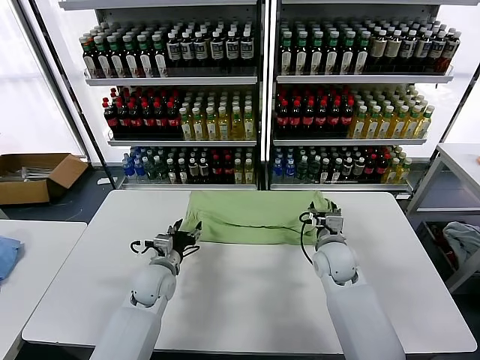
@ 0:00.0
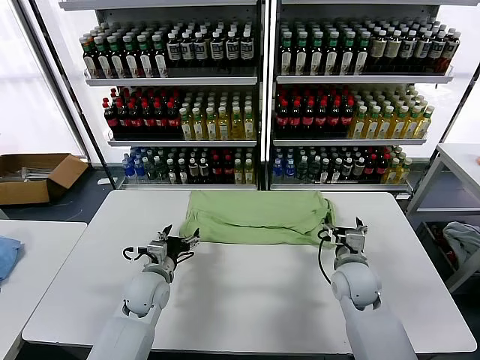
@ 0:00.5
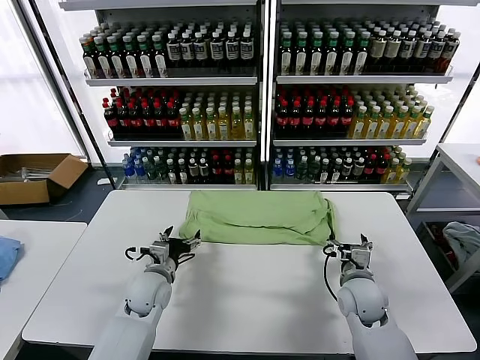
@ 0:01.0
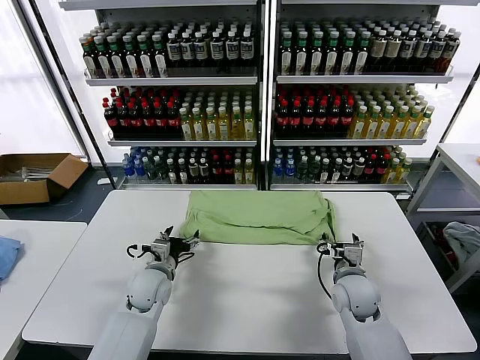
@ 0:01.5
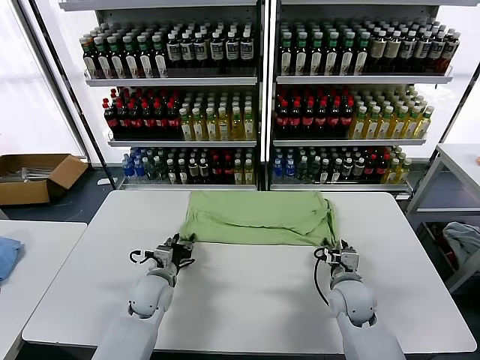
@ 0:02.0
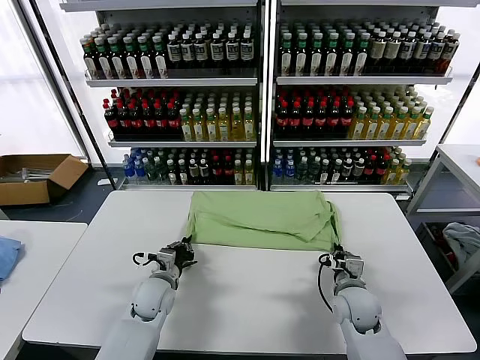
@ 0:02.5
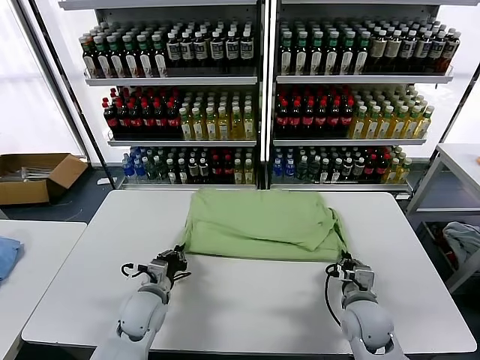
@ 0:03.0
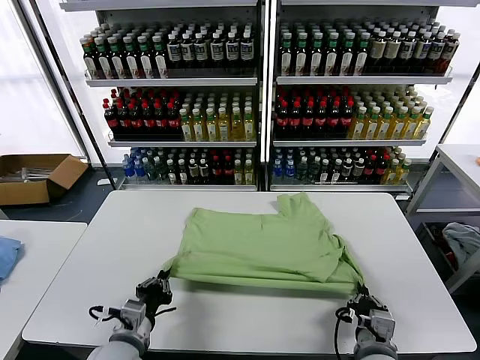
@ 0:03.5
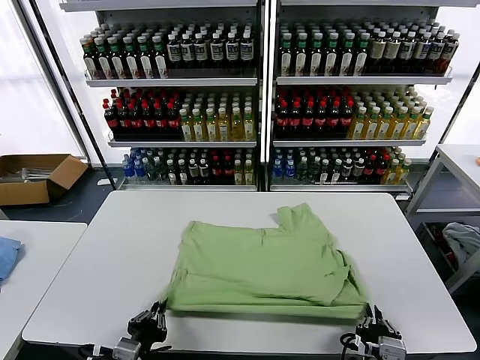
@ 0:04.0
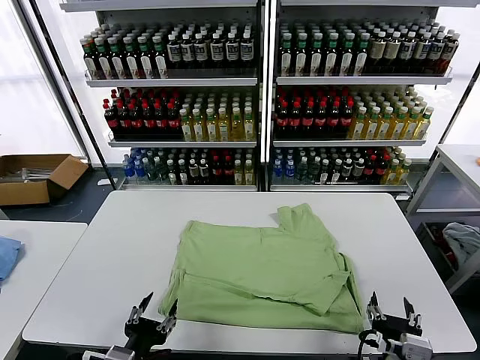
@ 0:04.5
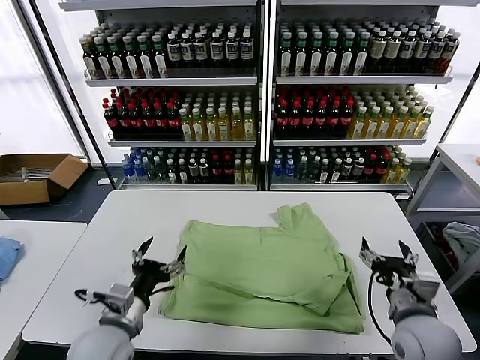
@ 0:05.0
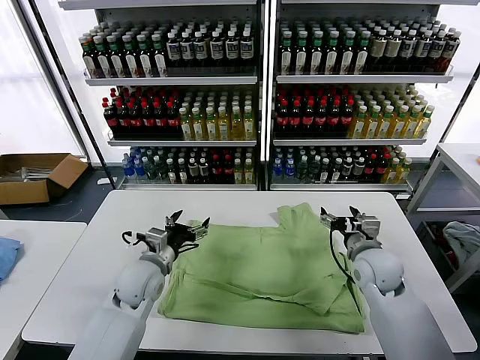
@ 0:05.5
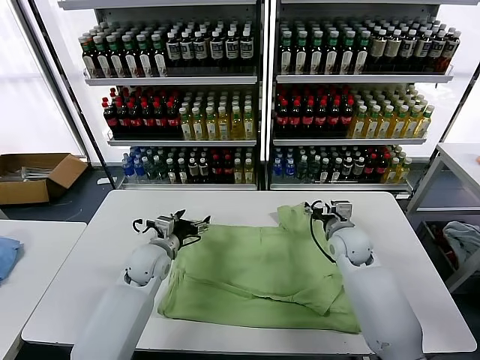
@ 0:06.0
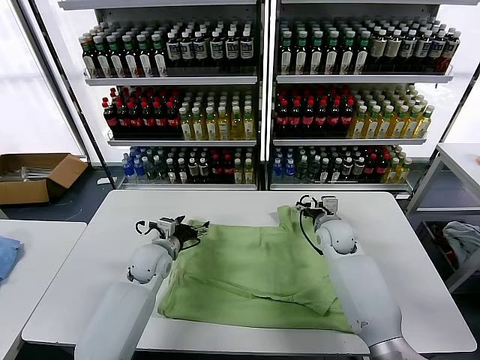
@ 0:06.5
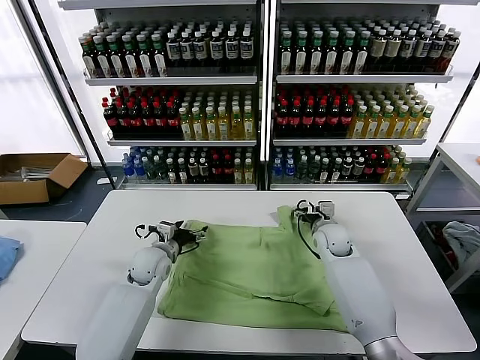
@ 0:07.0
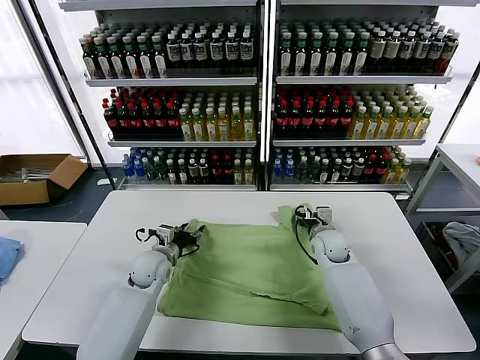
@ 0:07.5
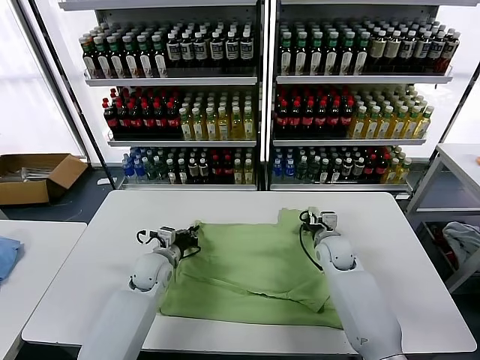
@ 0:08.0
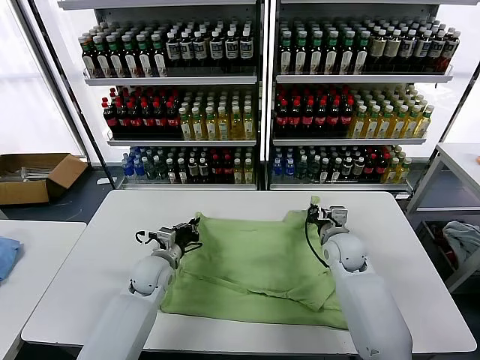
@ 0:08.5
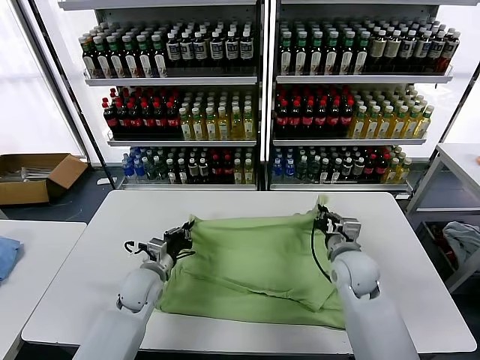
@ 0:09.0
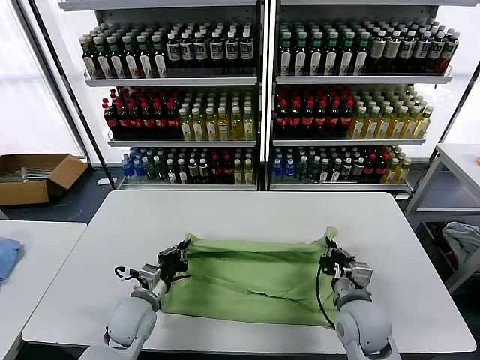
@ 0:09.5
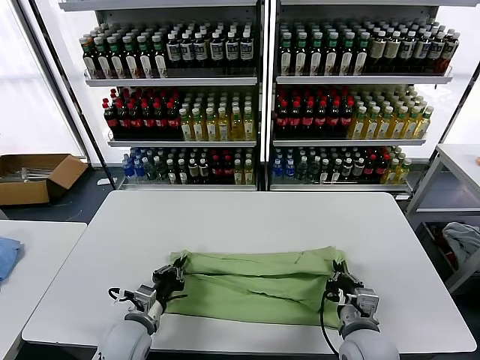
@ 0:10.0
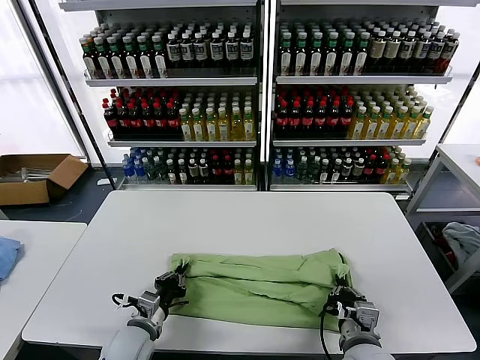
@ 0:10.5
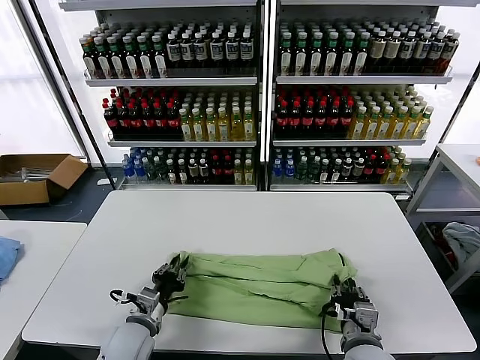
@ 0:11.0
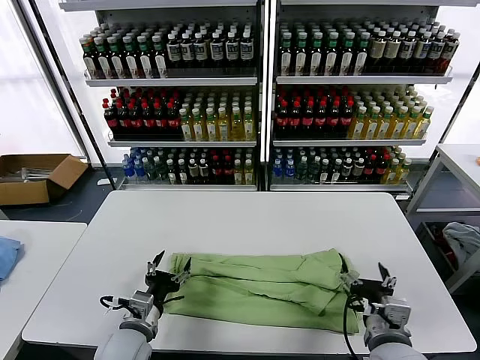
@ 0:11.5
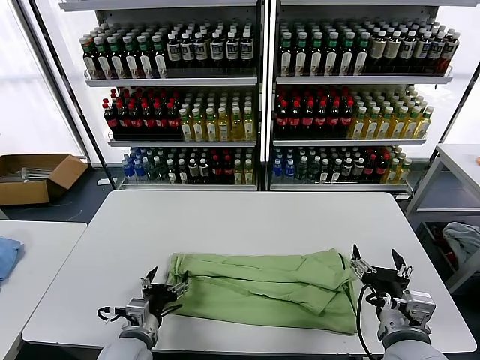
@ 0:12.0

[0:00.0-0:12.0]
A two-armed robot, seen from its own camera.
Task of the whole recording: fold and organize the clothes.
Step, 0:00.5 to 0:04.0: Drag the clothes downward with both gripper.
Step, 0:04.5 to 0:07.5: use both grippers simultaneously to clamp the upper edge of the clothing fabric.
Step, 0:08.5 to 0:11.0: use both grippers to drag the upper edge of the fabric backward and fold it over the lower edge.
0:00.0 to 0:02.0: The right gripper is displaced backward and downward by approximately 10 cm, and closes.
0:02.0 to 0:04.0: Both grippers travel together backward, some 25 cm. The left gripper closes.
0:04.0 to 0:06.0: Both grippers travel together forward, approximately 30 cm. The right gripper opens its fingers. The left gripper opens up.
0:06.0 to 0:08.0: The right gripper closes. Meanwhile the left gripper closes.
0:08.0 to 0:10.0: The right gripper travels backward by about 25 cm, while the left gripper is displaced backward by some 15 cm.
0:10.0 to 0:12.0: The right gripper shifts about 10 cm upward, and opens its fingers; the left gripper opens up.

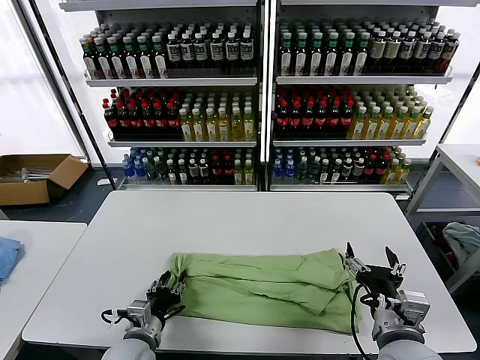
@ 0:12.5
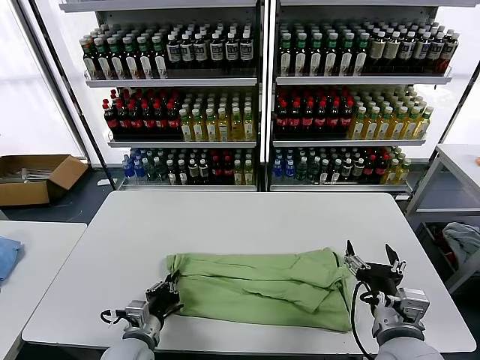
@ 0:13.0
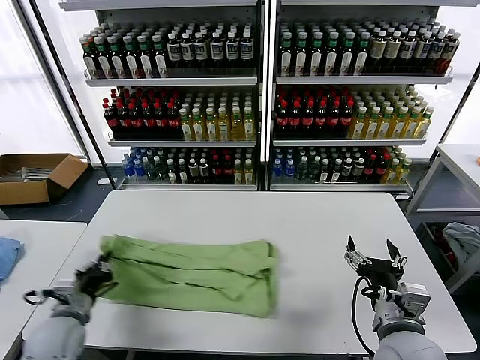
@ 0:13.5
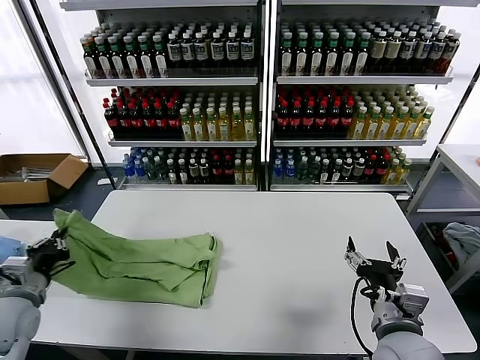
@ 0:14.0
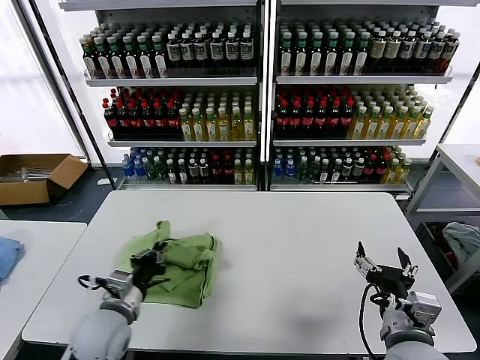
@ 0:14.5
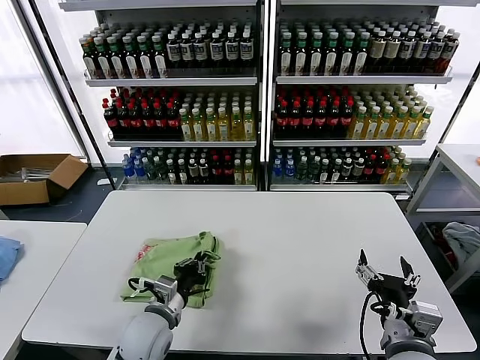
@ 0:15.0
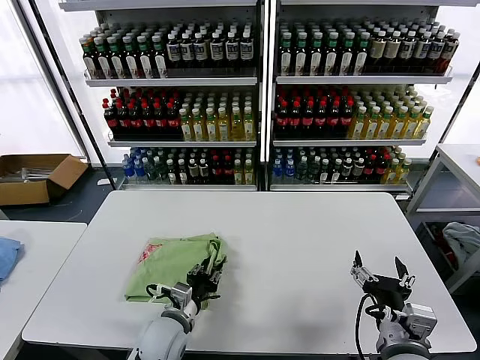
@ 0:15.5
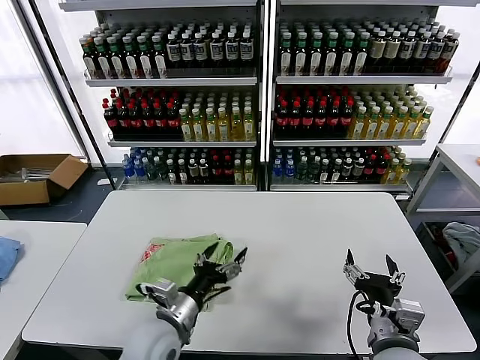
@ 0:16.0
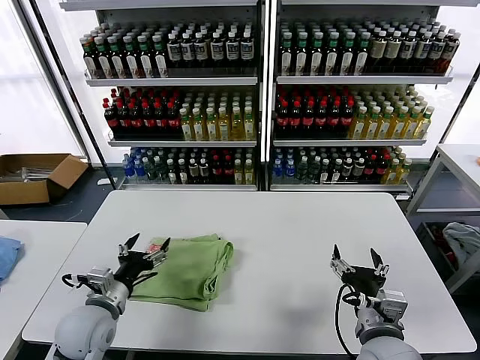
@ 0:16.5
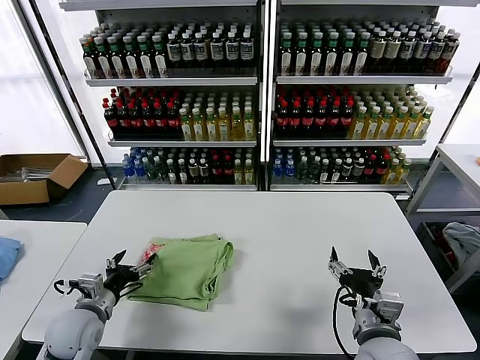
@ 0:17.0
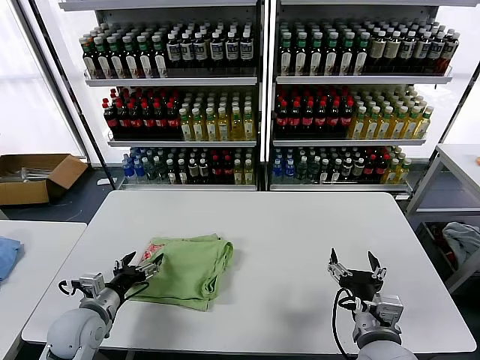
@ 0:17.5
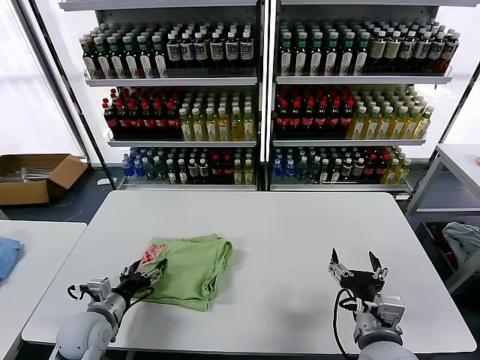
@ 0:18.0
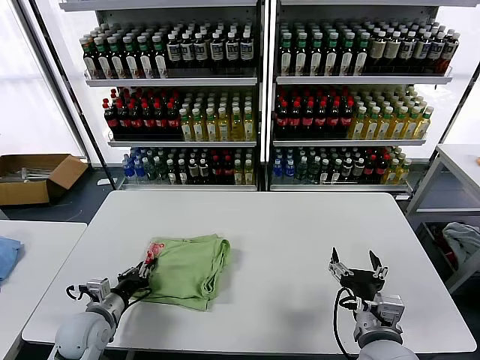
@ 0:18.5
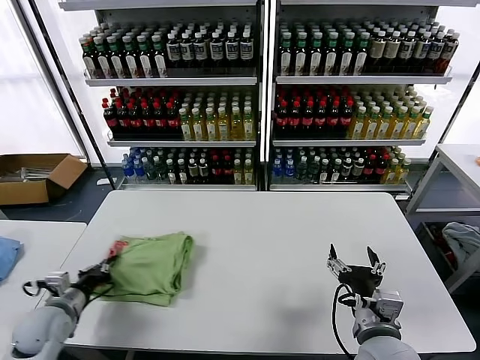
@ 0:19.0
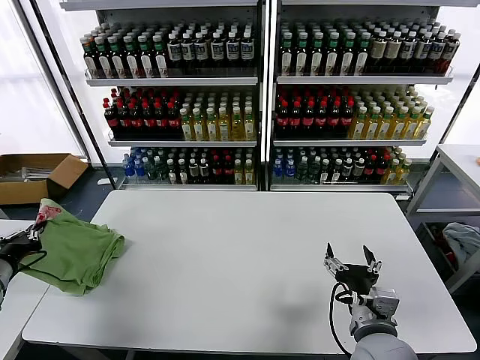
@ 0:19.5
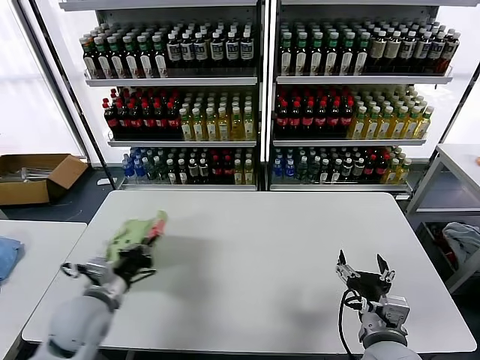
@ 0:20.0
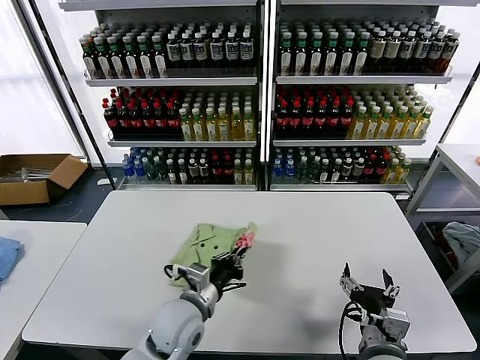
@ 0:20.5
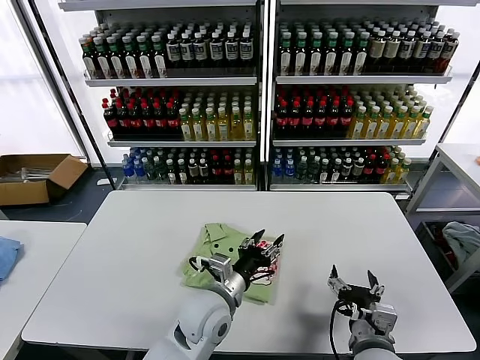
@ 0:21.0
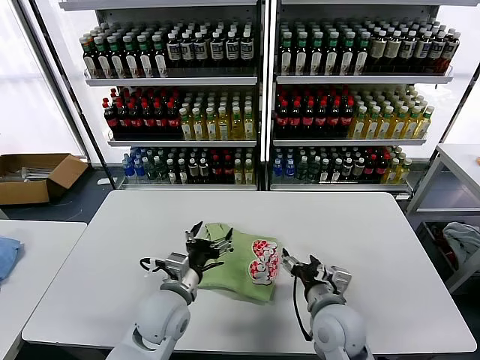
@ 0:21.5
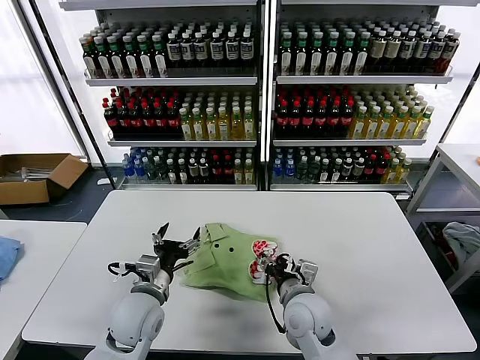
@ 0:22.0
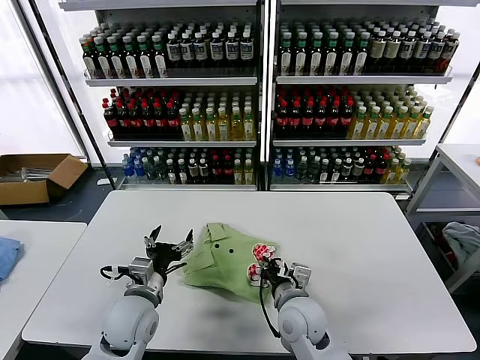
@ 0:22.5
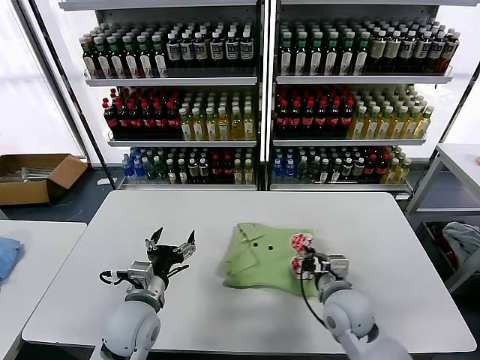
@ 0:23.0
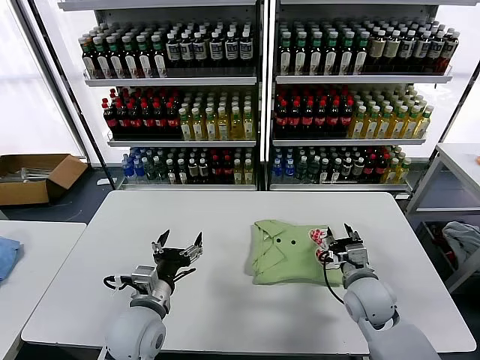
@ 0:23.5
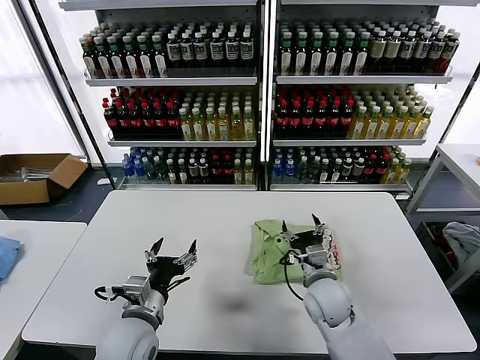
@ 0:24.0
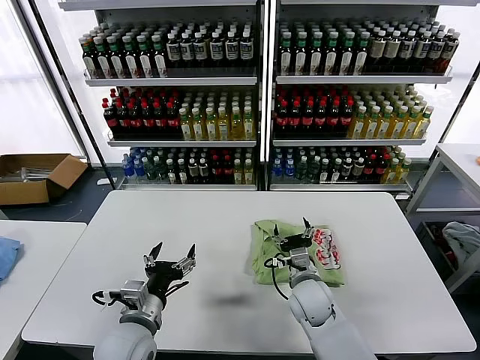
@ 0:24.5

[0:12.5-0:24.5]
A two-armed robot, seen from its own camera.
Task of the whole recording: fold and organize the clothes.
Step, 0:13.5 to 0:15.5: use the left gripper to drag the left edge of the fabric to the left and folds it over the right edge.
Step, 0:16.0 to 0:21.0: Flip the folded clothes over with left gripper.
0:12.5 to 0:14.5: The left gripper heads upward, covering some 10 cm, moves about 20 cm to the left and comes back, and closes up.
0:14.5 to 0:16.5: The left gripper goes to the right and returns, approximately 10 cm each way, and opens up.
0:16.5 to 0:18.5: The left gripper heads downward, covering about 5 cm, and closes.
0:18.5 to 0:20.5: The left gripper is displaced to the right by approximately 20 cm.
0:20.5 to 0:22.5: The right gripper travels forward and to the left by approximately 15 cm, and closes its fingers; the left gripper goes approximately 10 cm to the left, and opens.
0:22.5 to 0:24.5: The right gripper heads forward, covering about 5 cm, moves some 15 cm to the right and comes back, and opens up. The left gripper travels backward by some 5 cm.

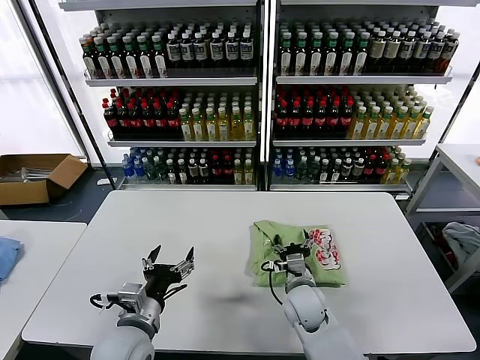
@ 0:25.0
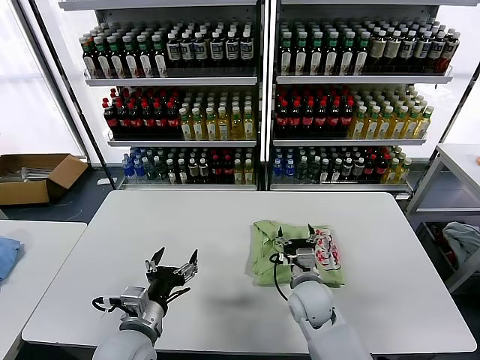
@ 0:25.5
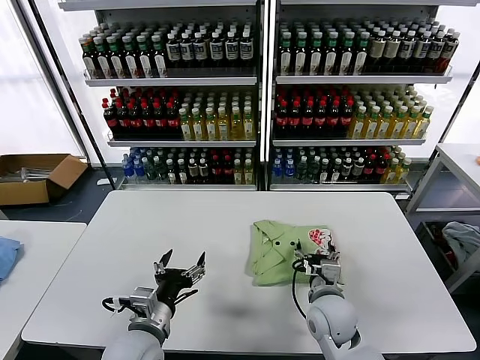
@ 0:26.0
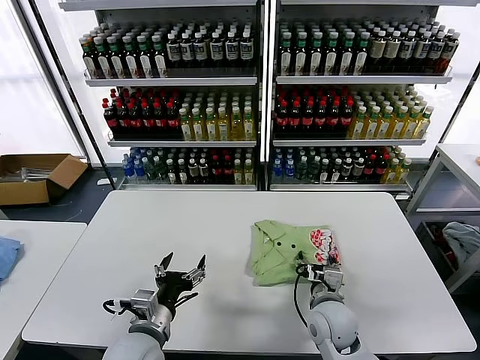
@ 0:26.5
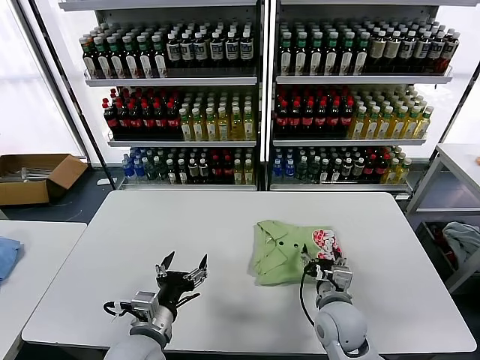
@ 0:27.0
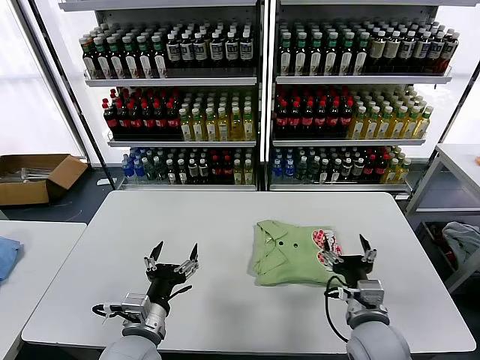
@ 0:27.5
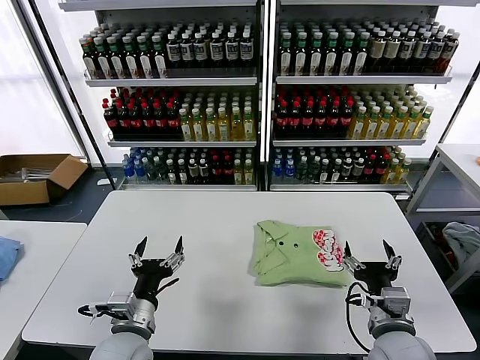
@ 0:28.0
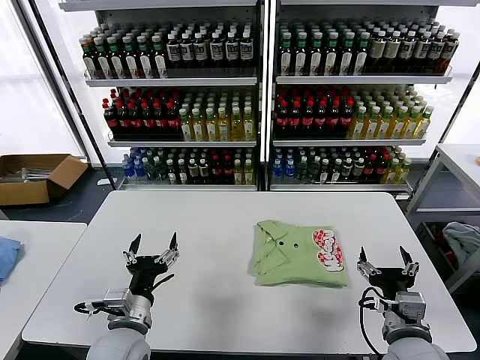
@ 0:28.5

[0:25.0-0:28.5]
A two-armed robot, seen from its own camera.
Task of the whole recording: fold and organize the clothes.
Step, 0:25.0 to 0:27.0: Drag the clothes to the center of the table.
0:25.0 to 0:27.0: The right gripper heads to the right and backward, covering approximately 10 cm.
0:27.0 to 0:28.5: The right gripper heads backward, to the right and upward, covering roughly 15 cm.
